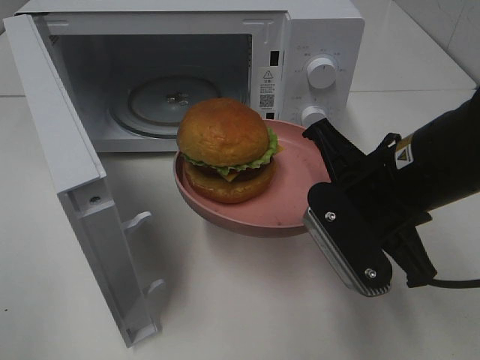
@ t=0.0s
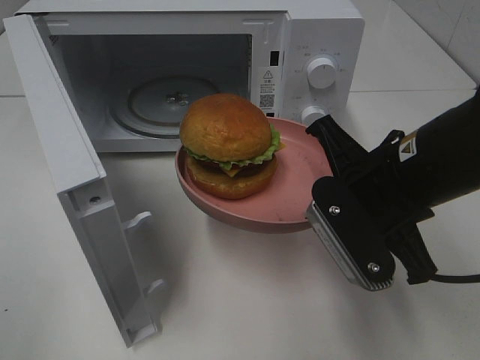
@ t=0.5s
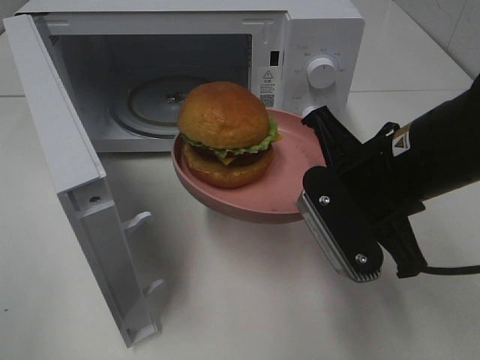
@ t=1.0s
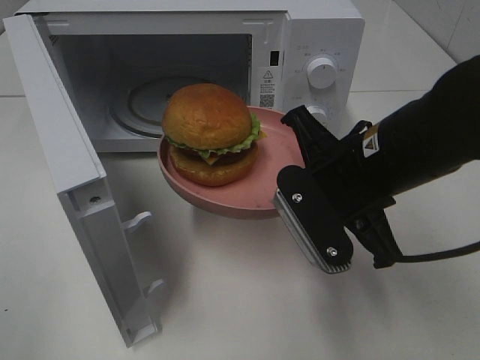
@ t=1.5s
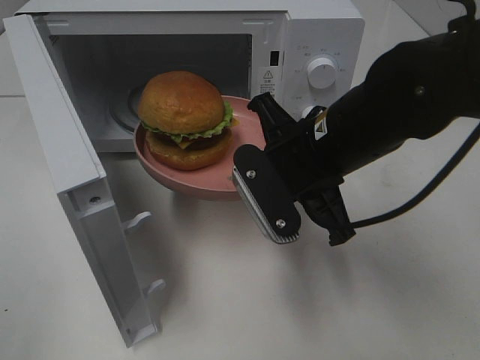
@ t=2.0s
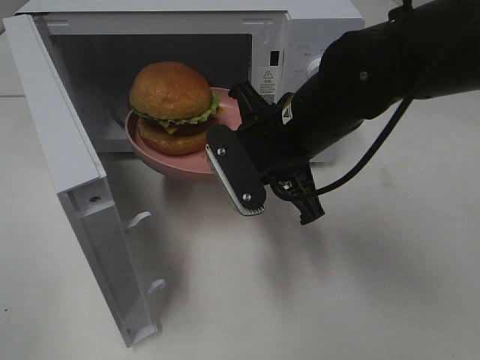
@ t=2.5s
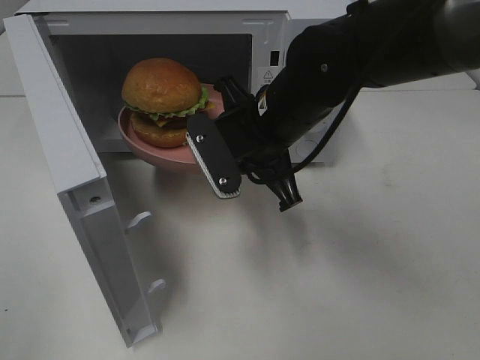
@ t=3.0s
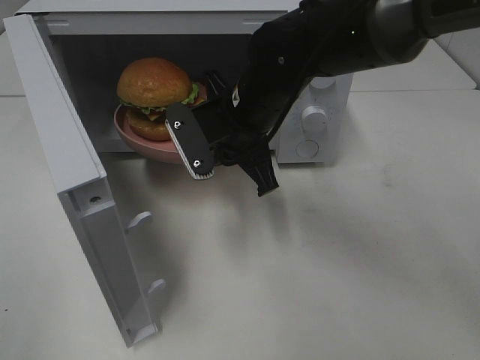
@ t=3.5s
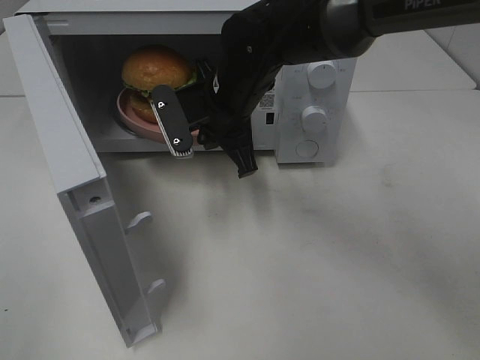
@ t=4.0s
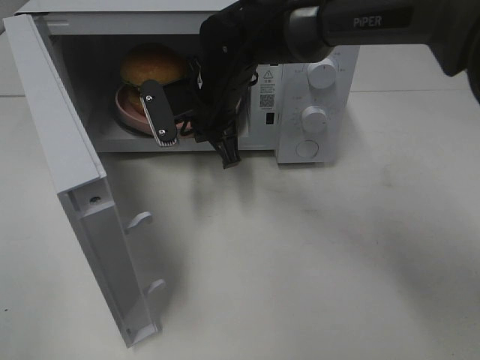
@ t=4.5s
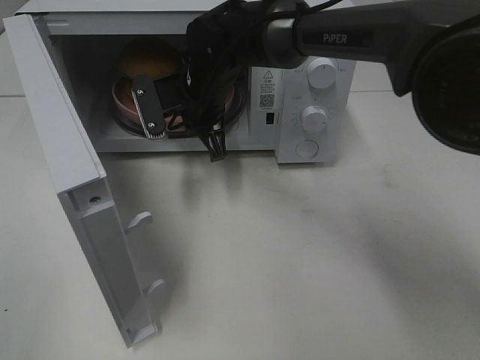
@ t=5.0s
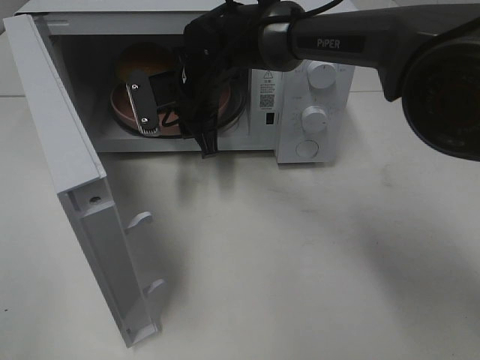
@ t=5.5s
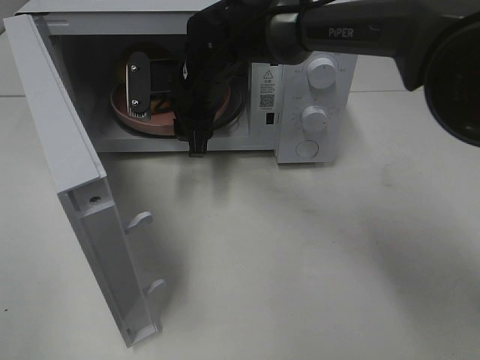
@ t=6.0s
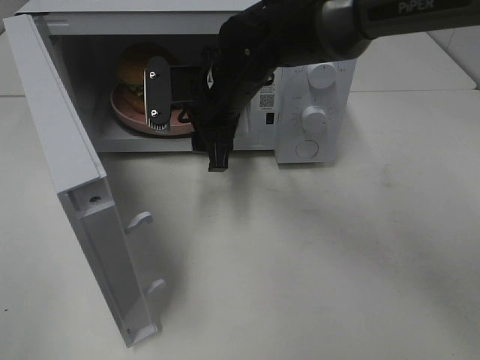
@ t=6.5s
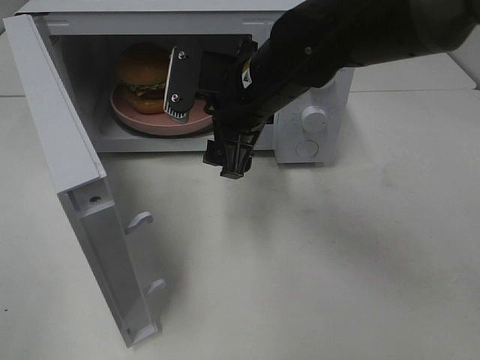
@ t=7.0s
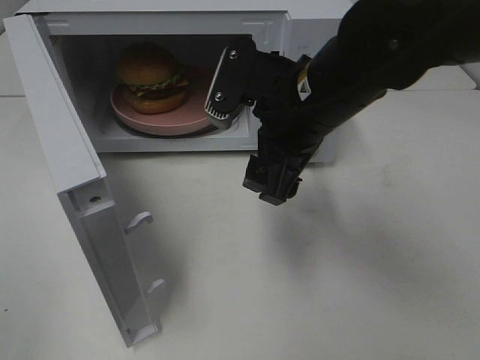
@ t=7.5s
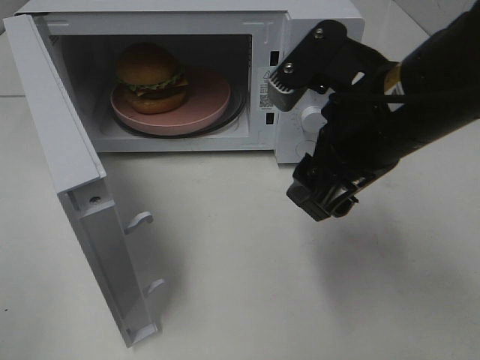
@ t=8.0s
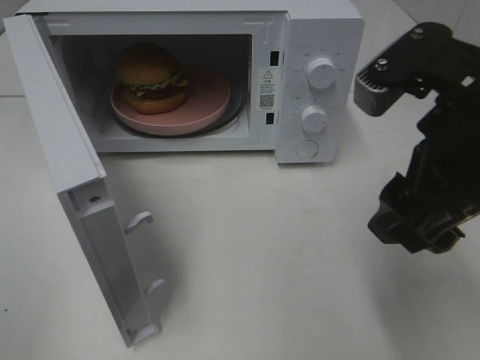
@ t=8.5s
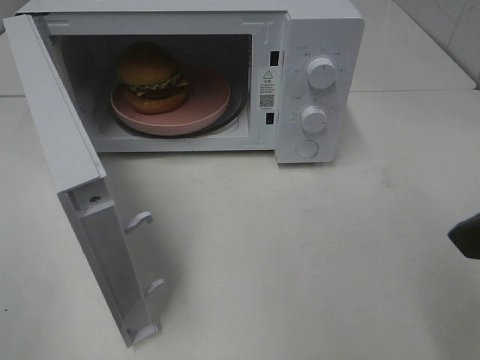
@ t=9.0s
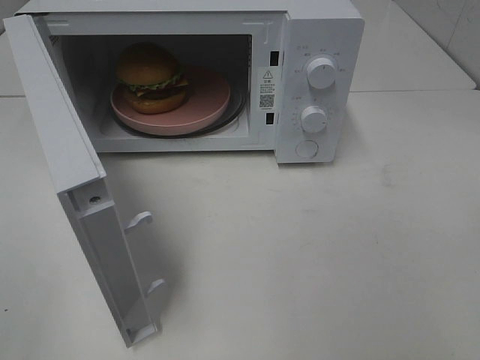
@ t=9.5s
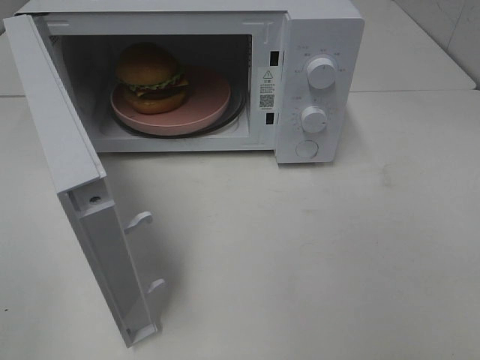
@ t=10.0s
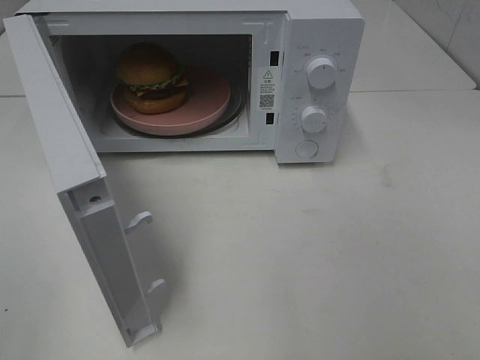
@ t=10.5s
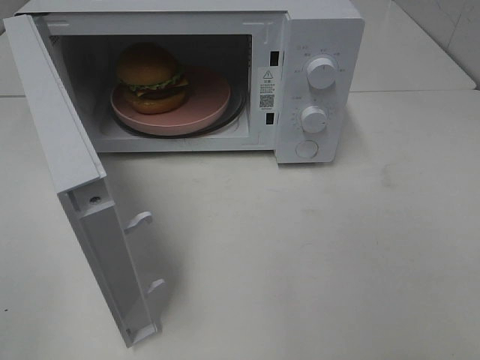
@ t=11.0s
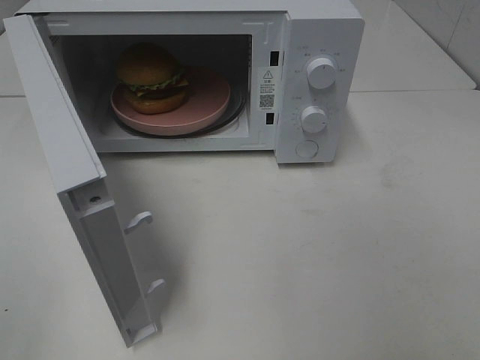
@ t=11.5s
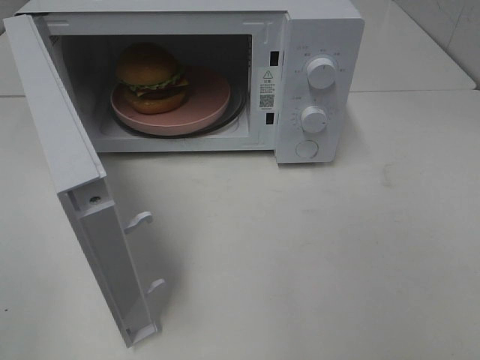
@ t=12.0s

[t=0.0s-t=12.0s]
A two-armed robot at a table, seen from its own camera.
Task of the whole recording: Heat the burger.
Step, t=0.0s to t=6.0s: Right hand: place the plate in the microwave.
t=0.0s to t=2.0s: The right gripper heads to the left, covering about 5 cm.
t=2.0s to t=4.0s: The right gripper is displaced forward and to the left by roughly 15 cm.
t=4.0s to t=6.0s: The right gripper ends up approximately 5 cm from where it was, and opens its fingers.
t=6.0s to t=8.0s: The right gripper moves backward, to the right and upward, roughly 25 cm.
t=8.0s to t=10.0s: The right gripper shifts approximately 25 cm backward and to the right.

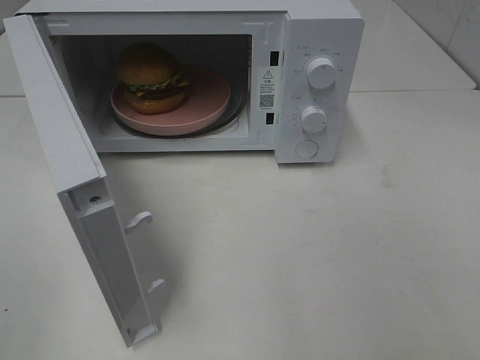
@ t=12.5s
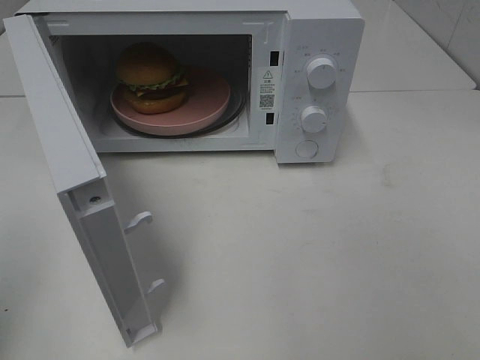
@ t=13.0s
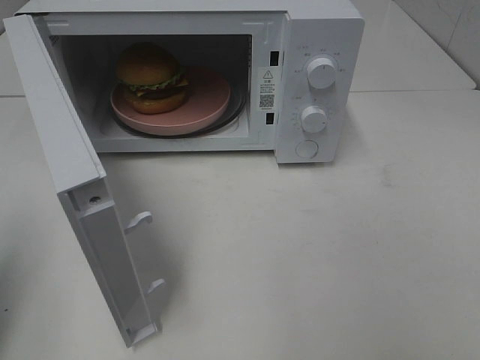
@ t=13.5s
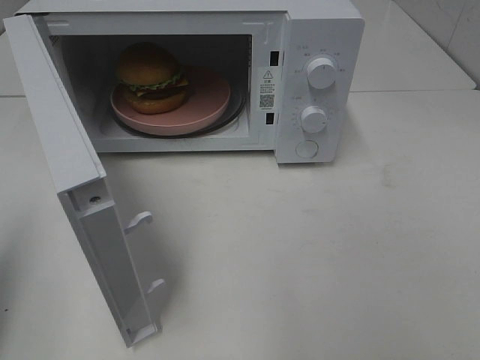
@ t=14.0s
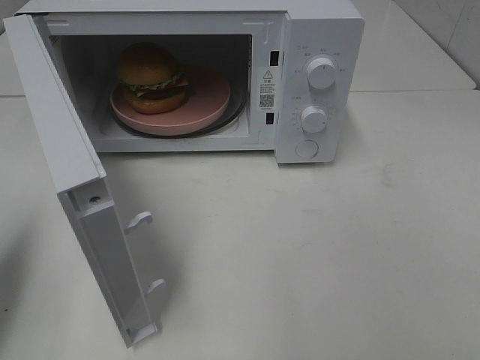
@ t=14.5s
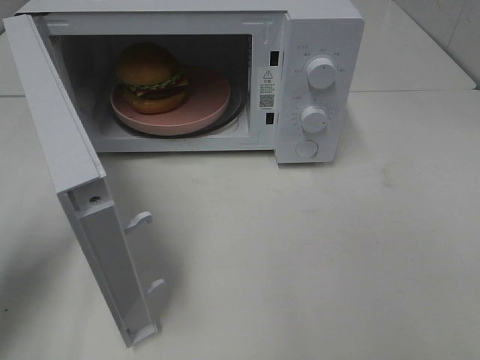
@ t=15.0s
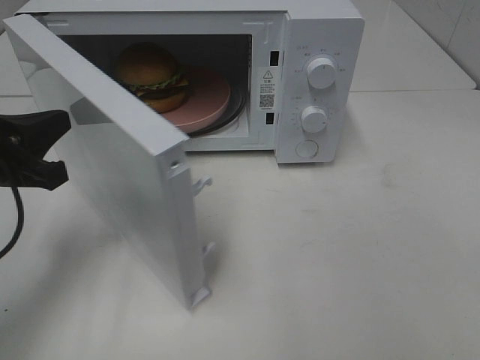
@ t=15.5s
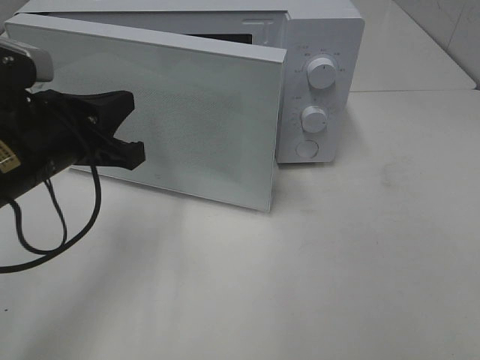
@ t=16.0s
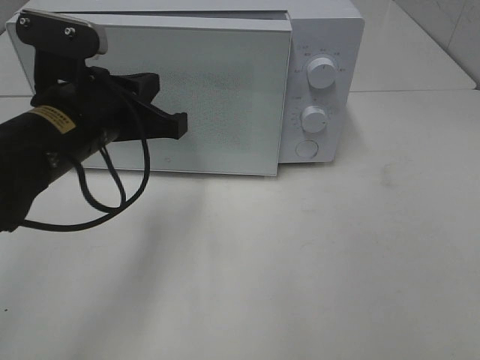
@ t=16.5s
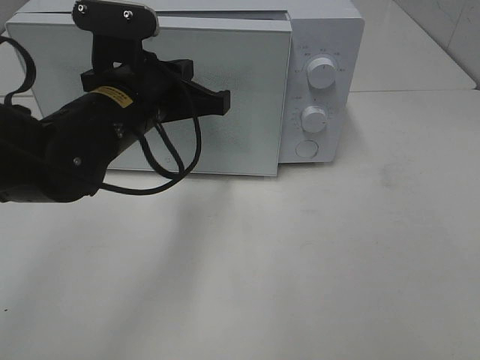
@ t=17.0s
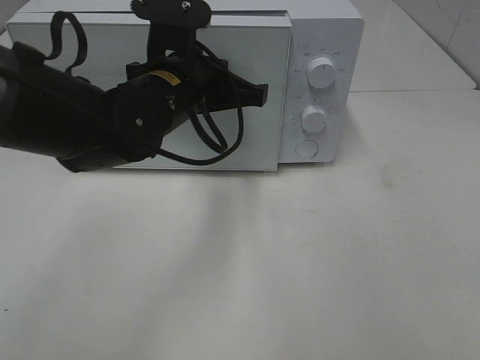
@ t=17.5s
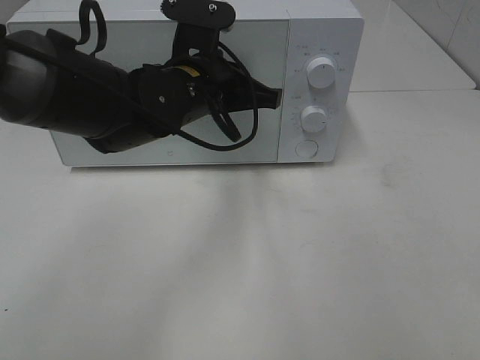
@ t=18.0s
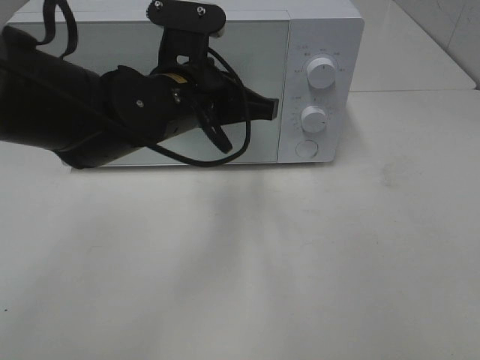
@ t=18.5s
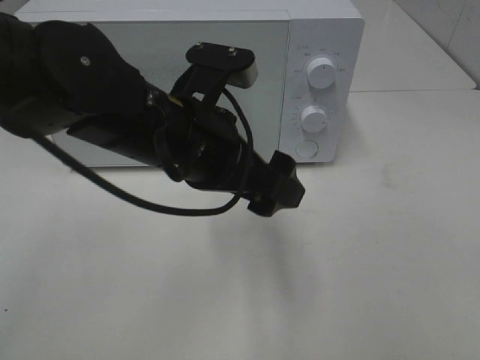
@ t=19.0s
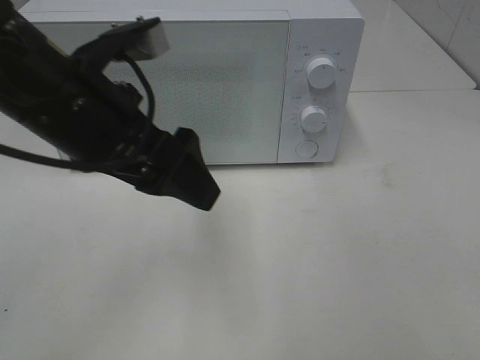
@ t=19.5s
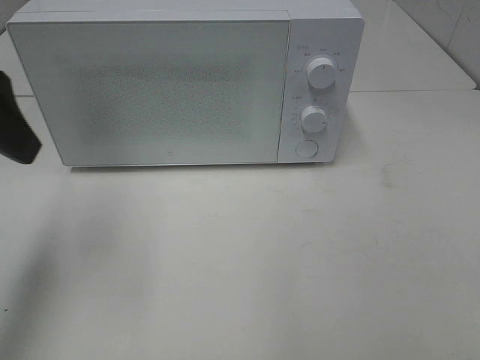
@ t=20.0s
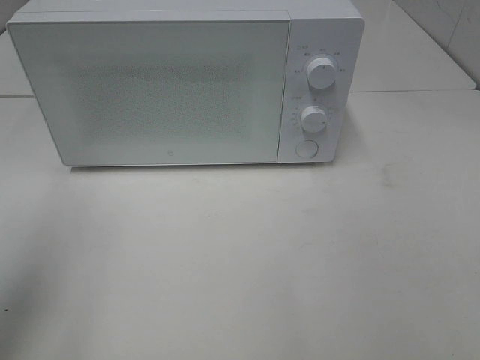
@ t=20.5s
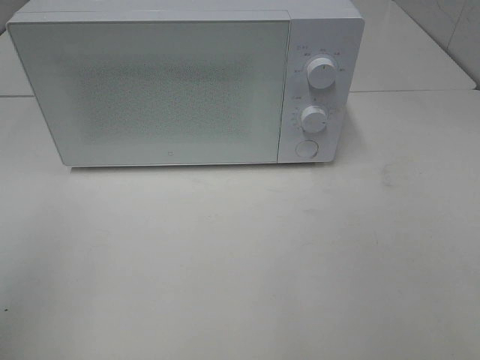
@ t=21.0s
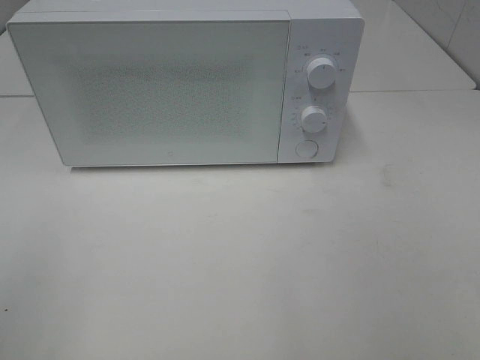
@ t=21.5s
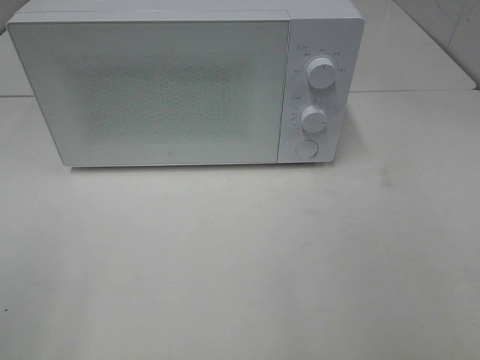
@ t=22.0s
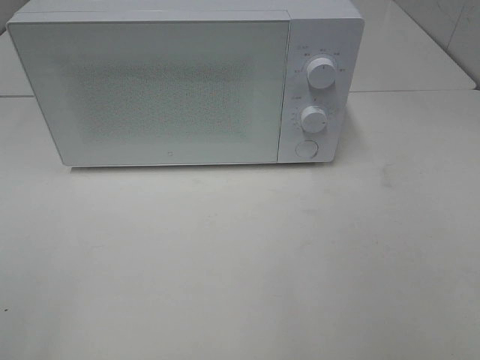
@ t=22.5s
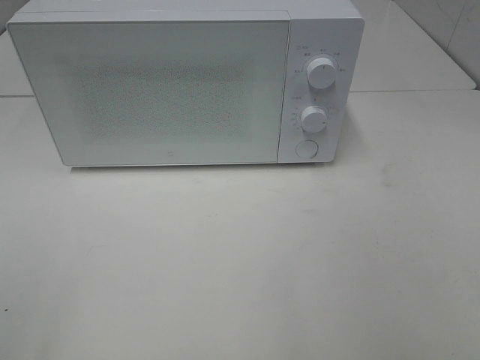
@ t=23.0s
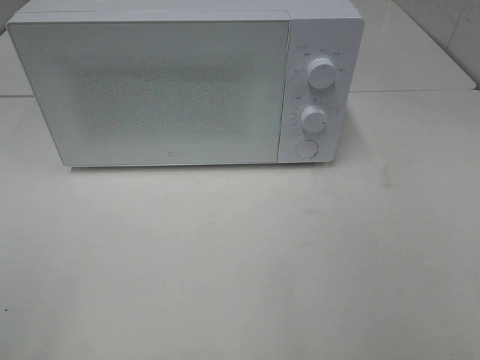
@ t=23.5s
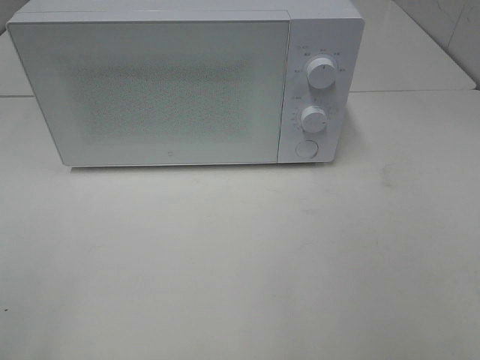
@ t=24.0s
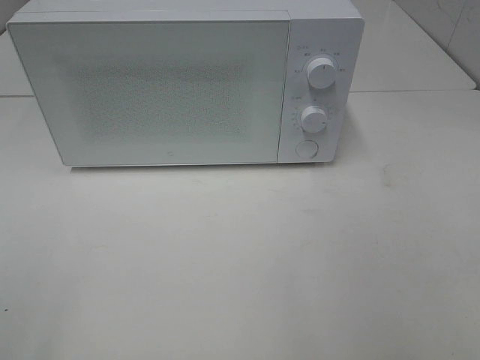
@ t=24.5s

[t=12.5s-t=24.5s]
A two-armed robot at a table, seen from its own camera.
Task of the whole recording: Heat the burger.
Step, t=12.5s to t=18.5s: Left hand: close the microwave door.
t=12.5s to t=14.5s: The left gripper is displaced forward and downward by some 15 cm, and closes up.
t=14.5s to t=16.5s: The left gripper travels to the right and forward by some 20 cm.
t=16.5s to t=18.5s: The left gripper heads to the right, covering some 10 cm.
t=18.5s to t=20.5s: The left gripper travels to the left, backward and upward by approximately 30 cm, and opens up.
t=20.5s to t=22.5s: The left gripper is displaced backward by approximately 15 cm.

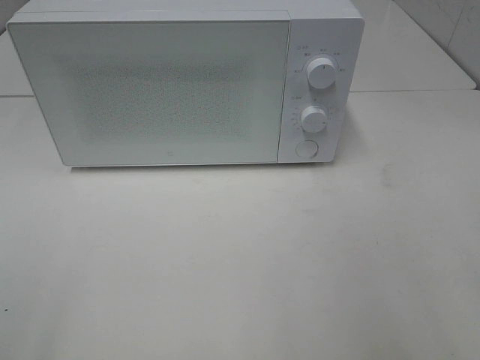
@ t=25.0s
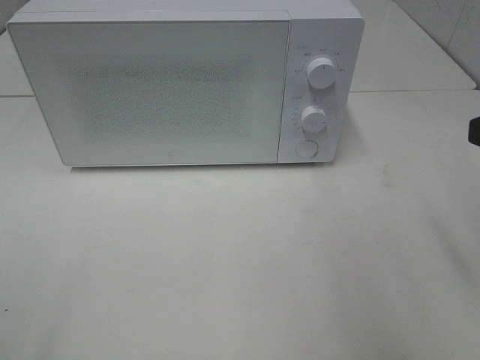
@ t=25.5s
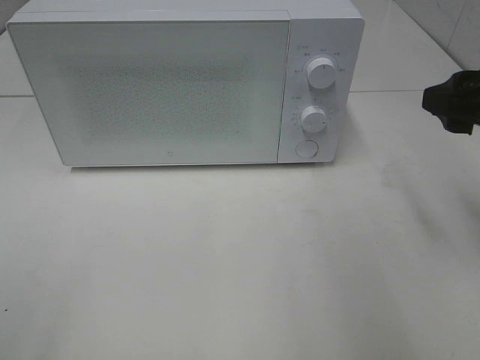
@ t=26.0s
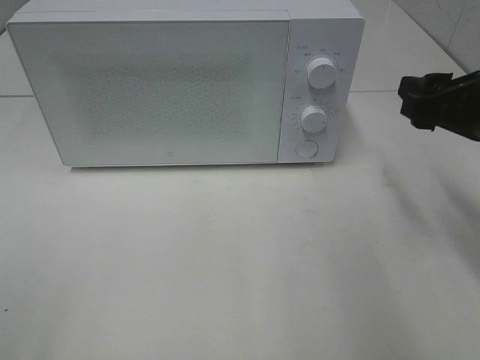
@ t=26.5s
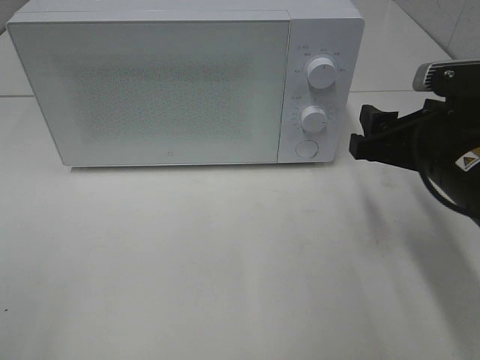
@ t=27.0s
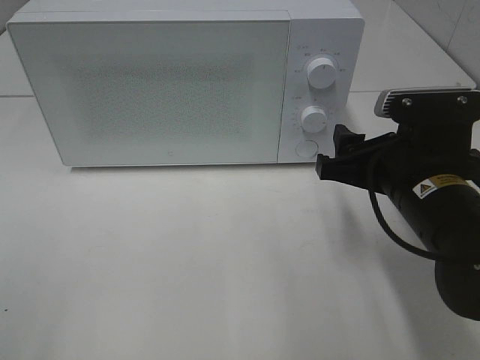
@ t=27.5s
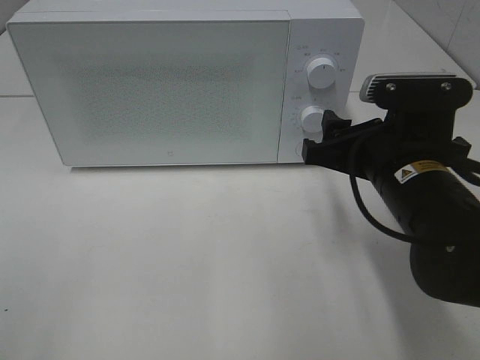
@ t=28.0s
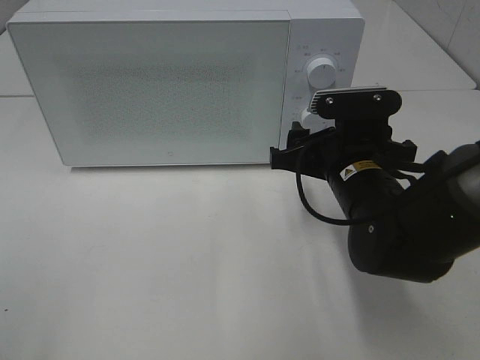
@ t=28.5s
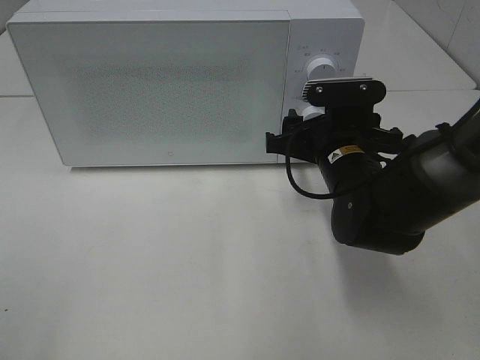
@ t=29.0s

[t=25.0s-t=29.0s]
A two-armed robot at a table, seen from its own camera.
Task of the whole recording: Heat the burger.
t=25.0s to t=27.0s: The right gripper shifts approximately 20 cm forward, downward and to the left.
t=27.0s to t=29.0s: The right gripper travels to the left, forward and downward by some 10 cm.
